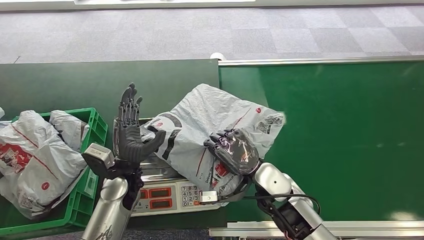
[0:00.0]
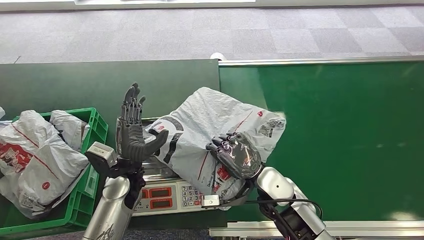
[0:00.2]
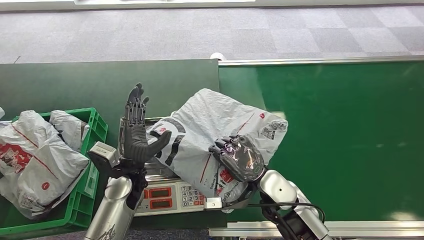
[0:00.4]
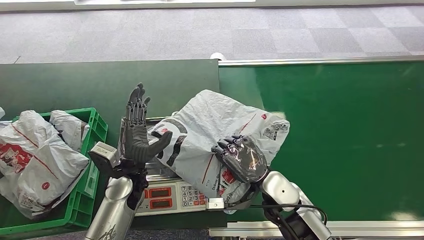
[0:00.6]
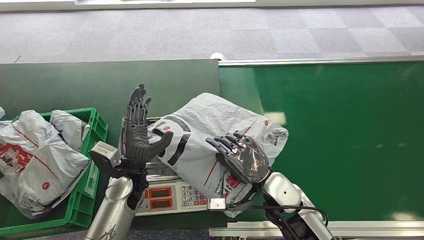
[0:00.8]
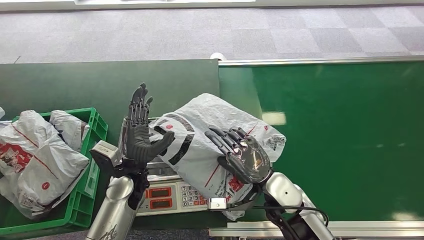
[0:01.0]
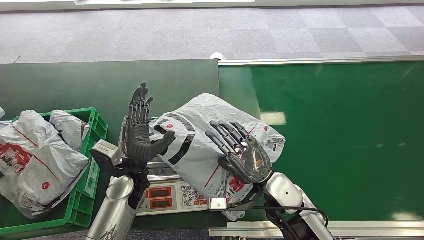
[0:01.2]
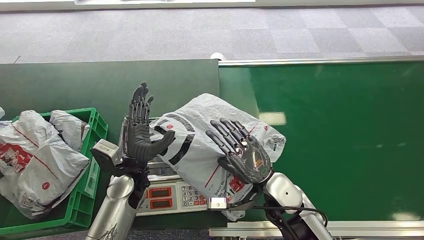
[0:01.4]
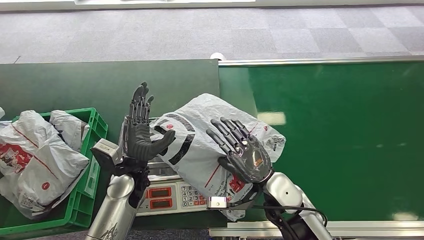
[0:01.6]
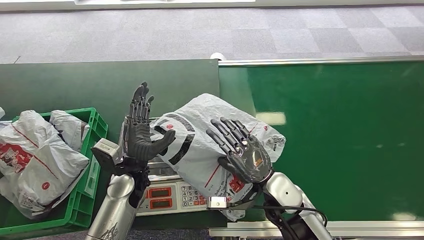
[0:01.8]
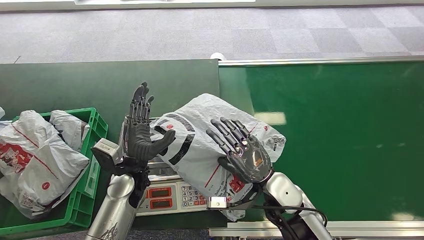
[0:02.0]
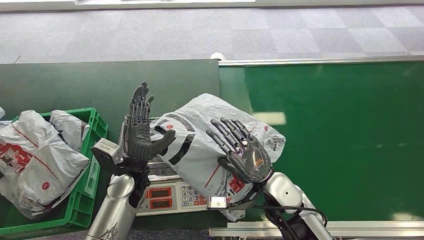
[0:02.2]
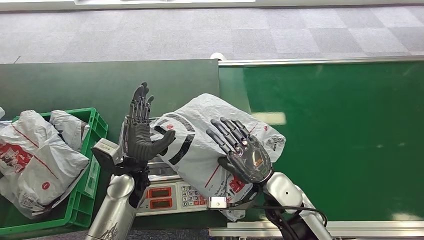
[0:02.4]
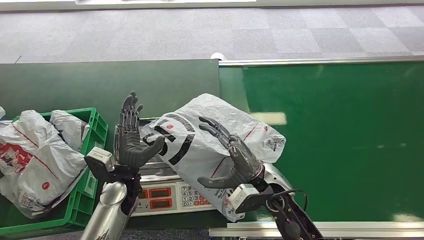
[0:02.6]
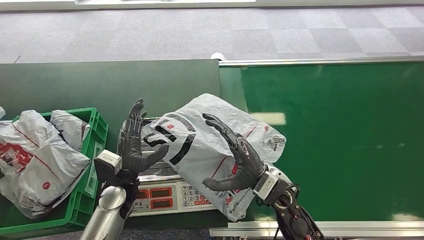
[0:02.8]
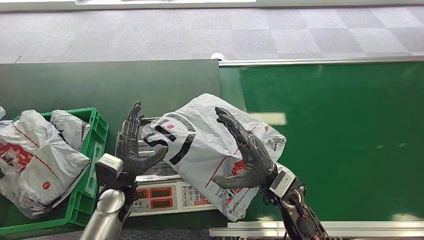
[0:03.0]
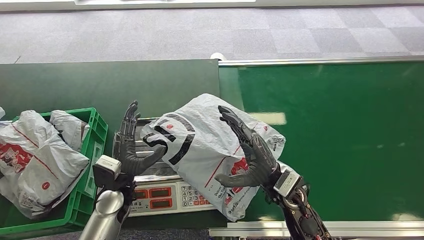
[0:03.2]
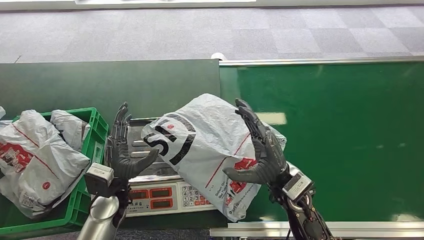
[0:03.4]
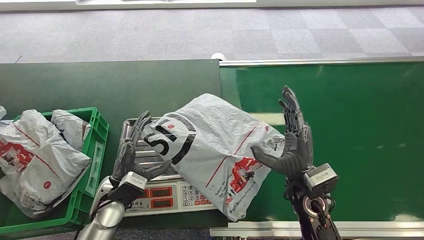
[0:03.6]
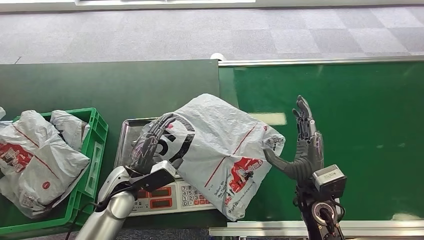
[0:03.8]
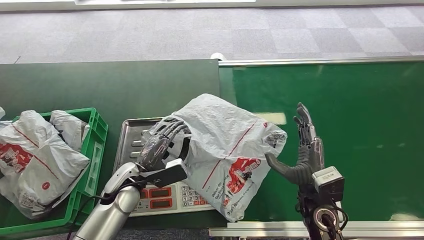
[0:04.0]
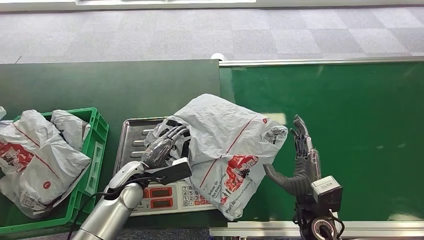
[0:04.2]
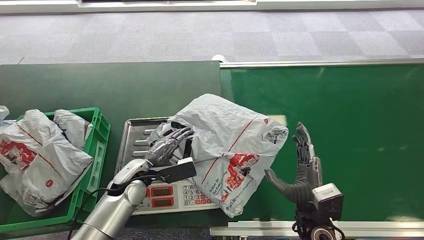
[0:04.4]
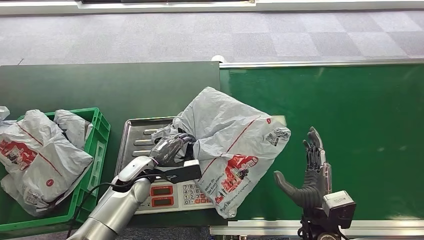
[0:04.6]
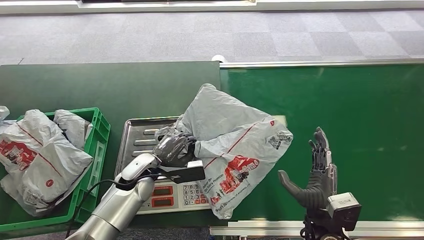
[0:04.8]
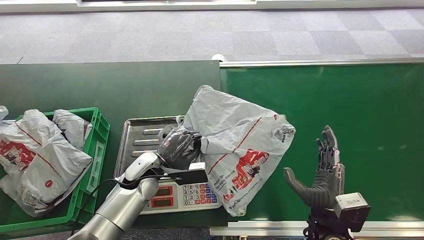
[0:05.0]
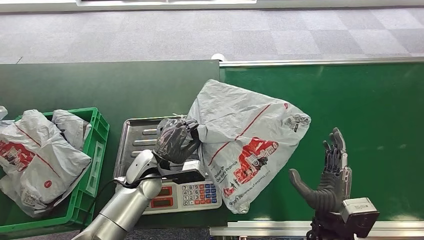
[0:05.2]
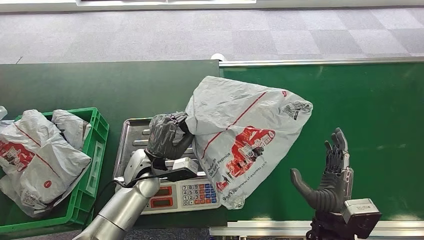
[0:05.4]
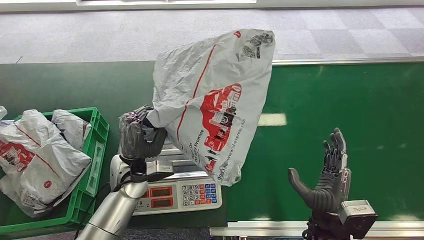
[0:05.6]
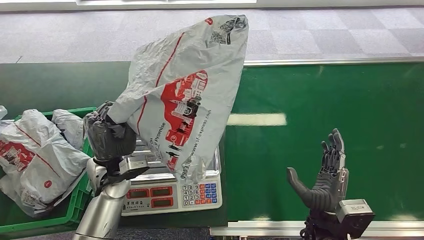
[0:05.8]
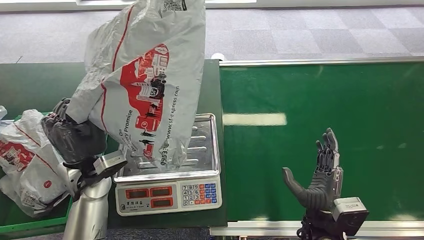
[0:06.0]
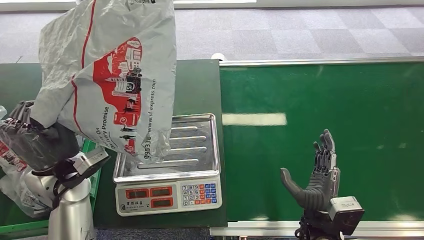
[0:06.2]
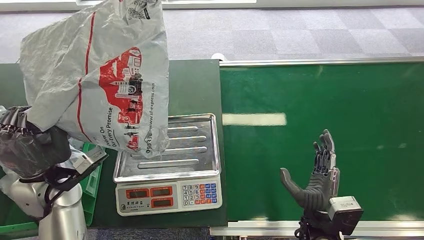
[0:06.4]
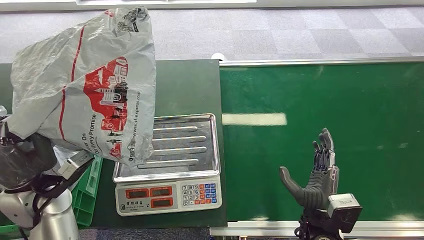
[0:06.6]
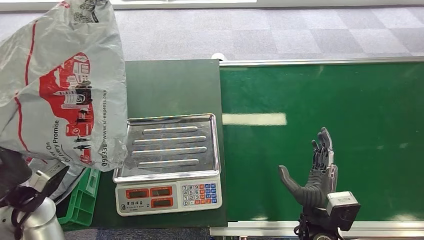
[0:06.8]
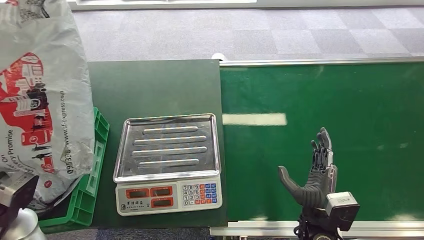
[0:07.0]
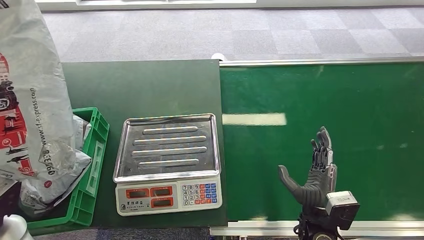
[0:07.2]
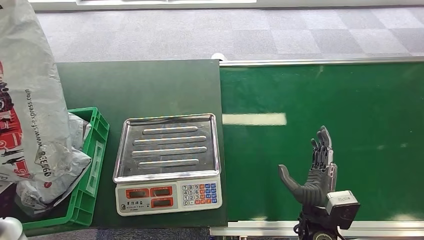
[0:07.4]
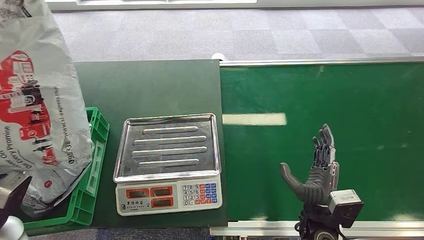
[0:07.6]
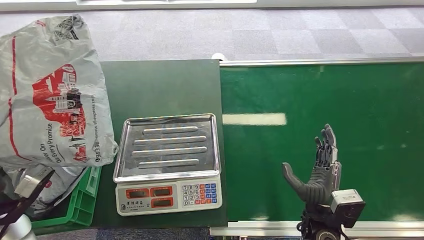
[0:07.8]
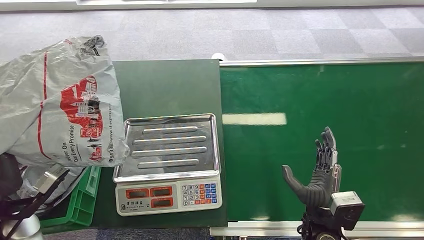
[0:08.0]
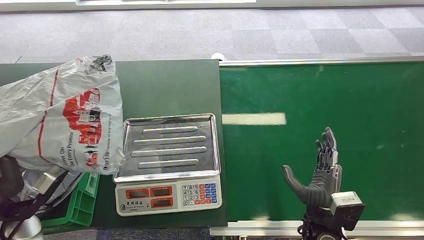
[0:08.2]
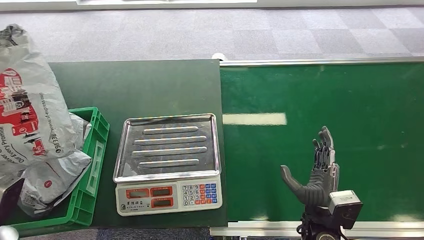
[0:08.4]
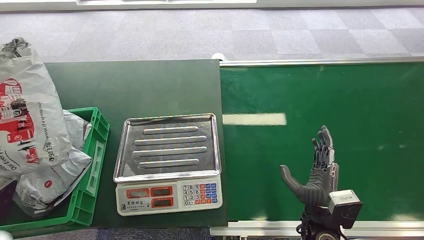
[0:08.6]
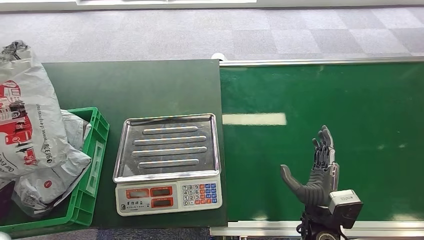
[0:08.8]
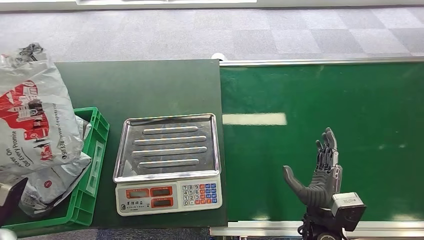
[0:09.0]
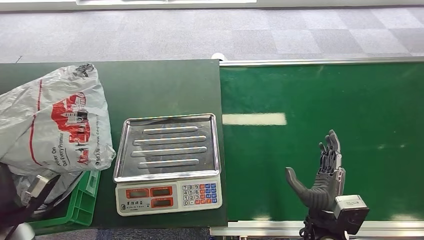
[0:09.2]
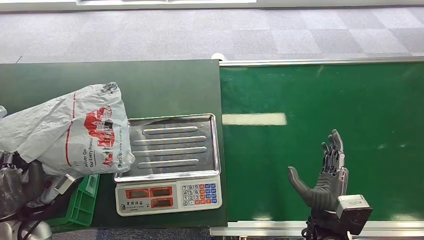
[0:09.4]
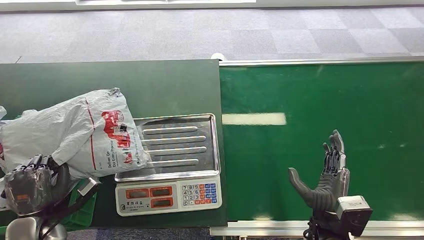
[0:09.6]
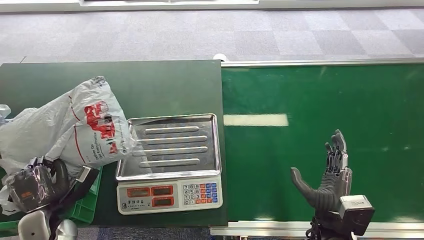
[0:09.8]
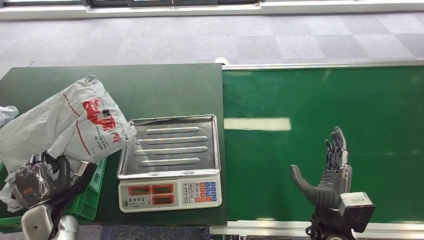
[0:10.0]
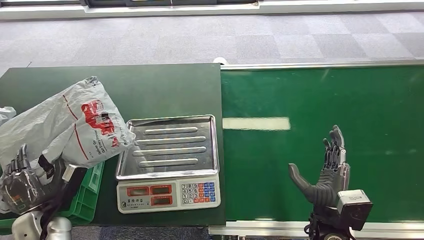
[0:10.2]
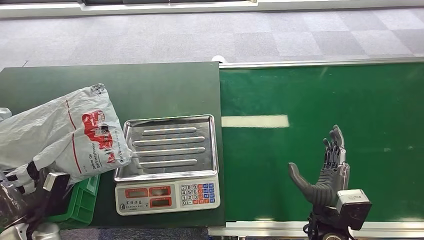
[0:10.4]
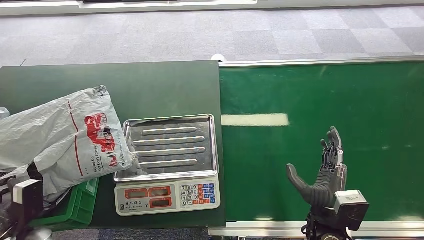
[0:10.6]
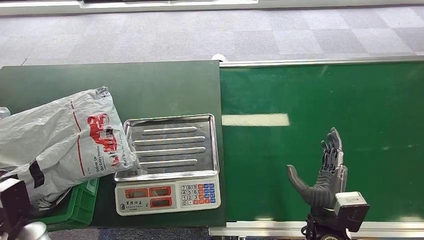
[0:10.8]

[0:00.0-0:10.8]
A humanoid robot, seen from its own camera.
Step, 0:03.4 to 0:06.4: Pick up the package from the inbound machine.
Step, 0:06.8 to 0:10.8: Place the package into the parcel locker.
0:00.0 to 0:01.6: There are only small adjustments of the hands.
0:01.6 to 0:03.0: The left hand shifts by about 5 cm.
0:07.8 to 0:09.2: The left hand moves approximately 5 cm.
0:09.2 to 0:10.8: The left hand travels downward by about 5 cm.
